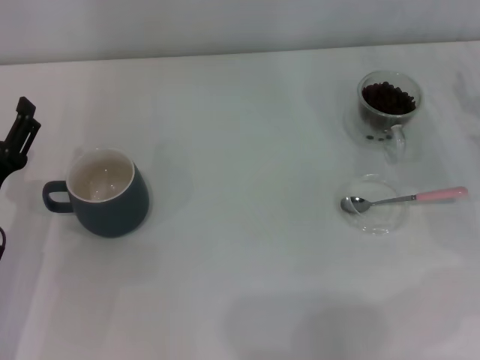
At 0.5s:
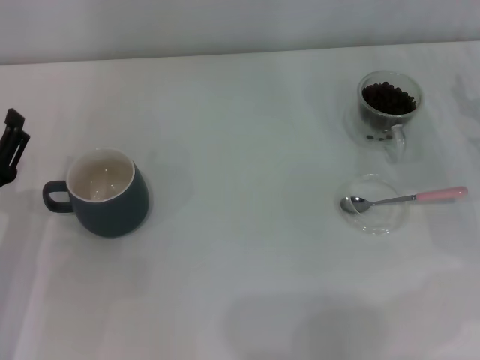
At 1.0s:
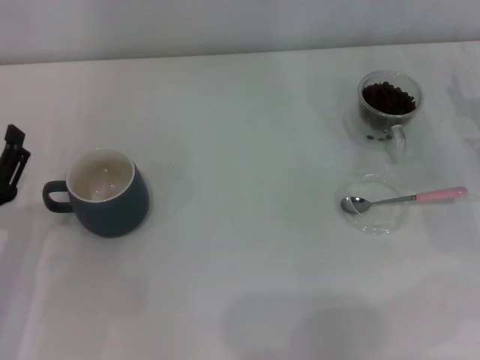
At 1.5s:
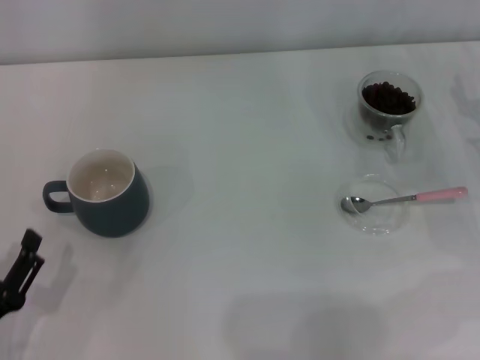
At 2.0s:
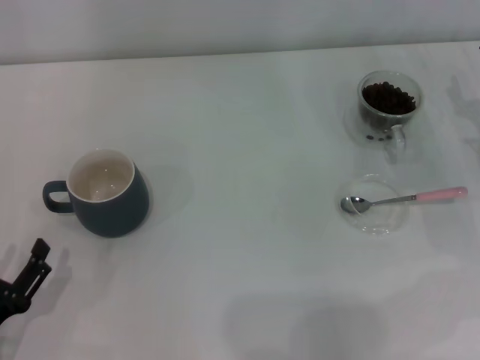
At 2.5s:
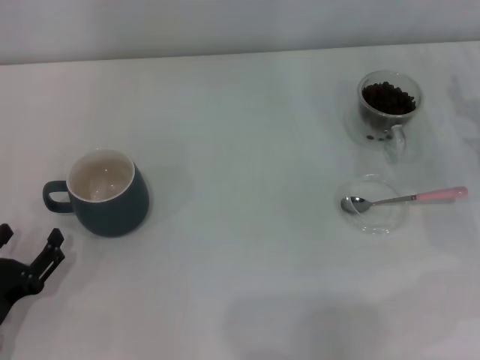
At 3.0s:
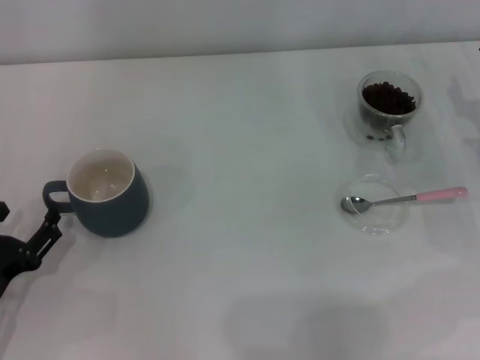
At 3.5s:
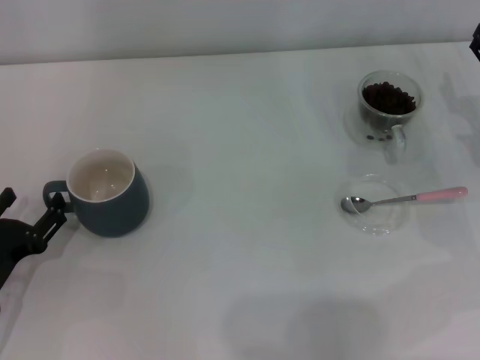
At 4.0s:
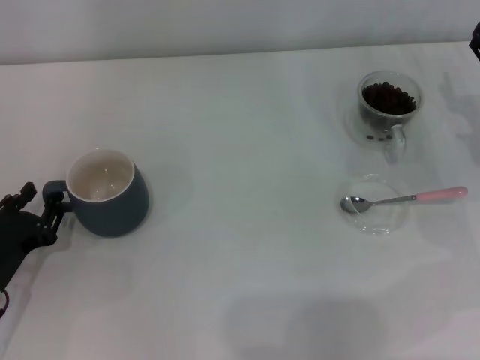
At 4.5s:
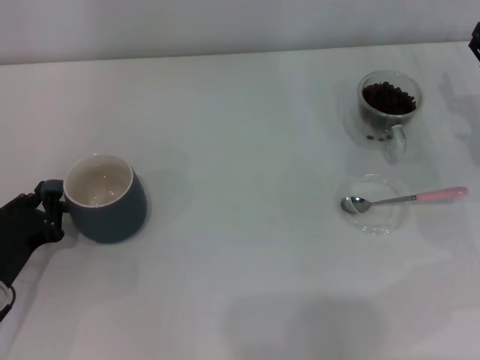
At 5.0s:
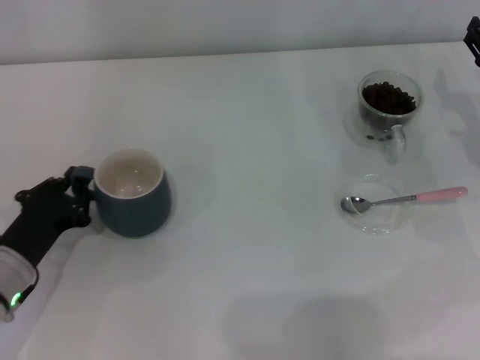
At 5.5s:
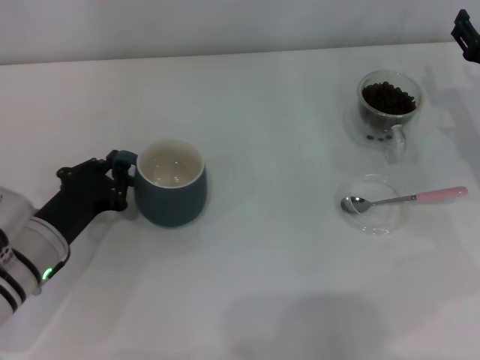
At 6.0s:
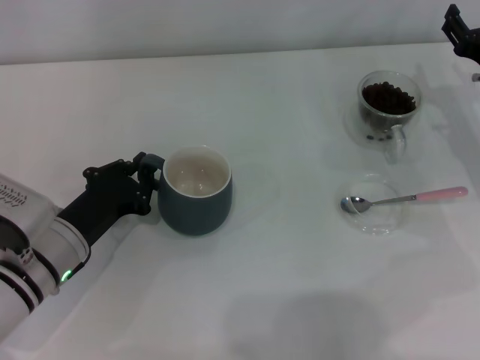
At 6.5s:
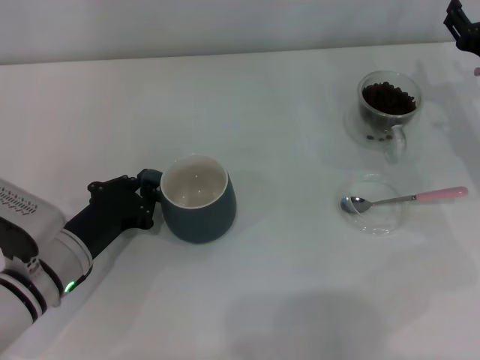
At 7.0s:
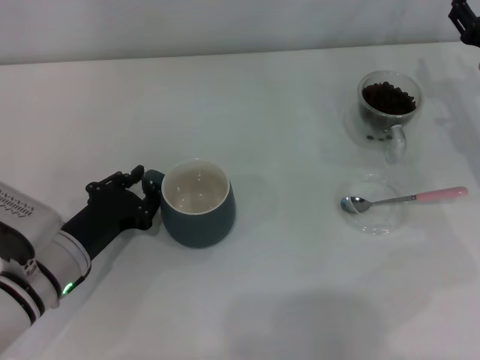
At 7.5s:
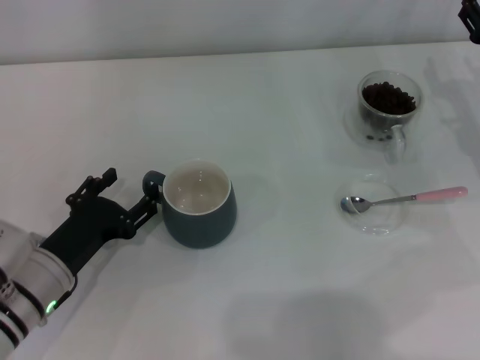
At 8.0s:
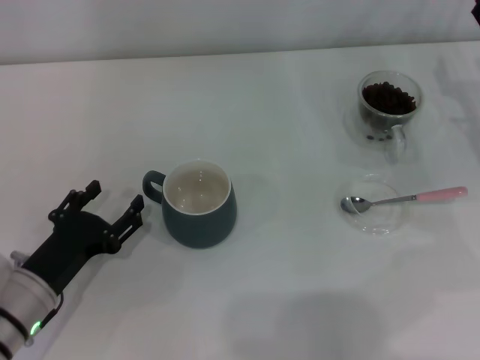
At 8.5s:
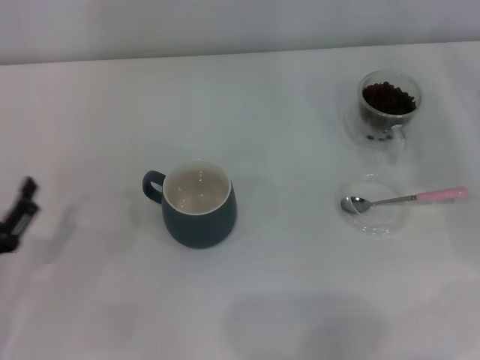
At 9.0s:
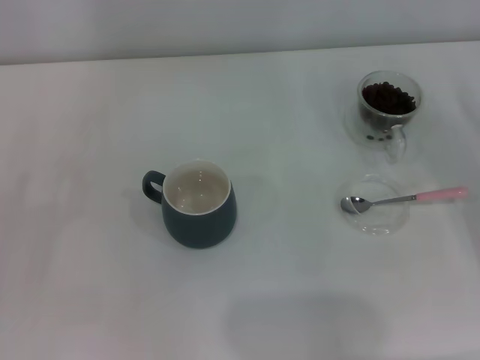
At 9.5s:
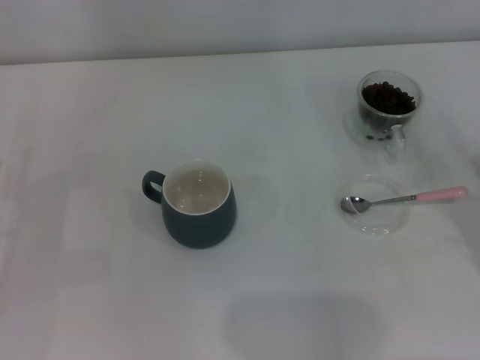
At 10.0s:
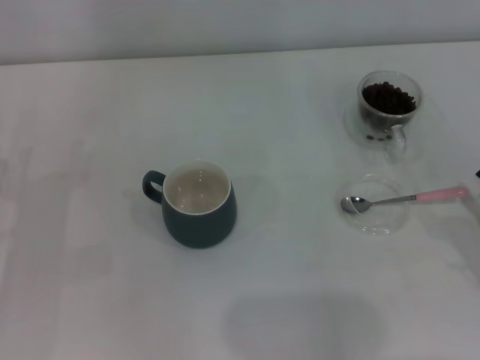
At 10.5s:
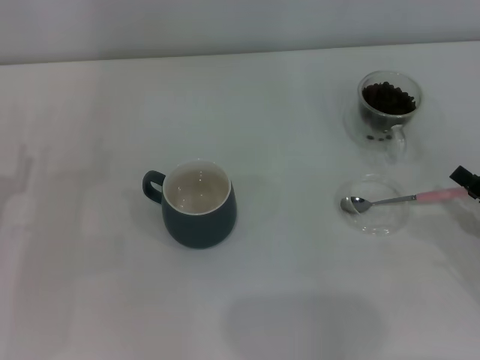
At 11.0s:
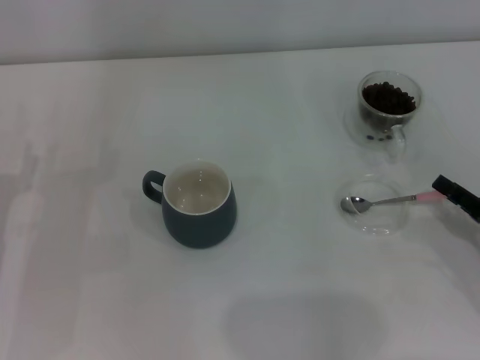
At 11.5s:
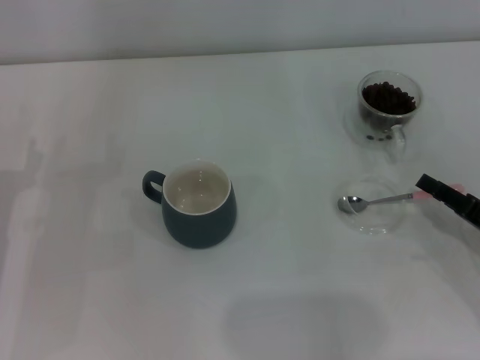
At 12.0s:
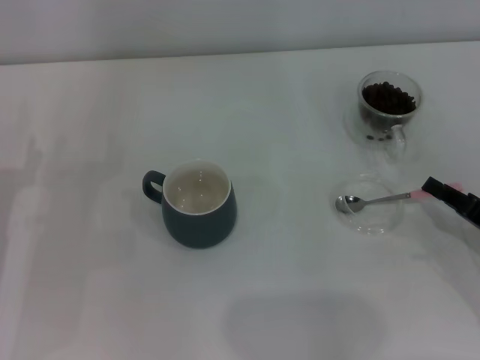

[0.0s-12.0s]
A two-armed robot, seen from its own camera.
Task of the whole recording: Use a pink spoon to take out the coffee beans from the glass and pour them into the gray cup.
Step, 0.0s to 8.0s: Move the cup to the center of view with the left gripper.
0.0s to 2.0s: The left gripper travels backward by some 10 cm.
2.0s to 4.0s: The left gripper is displaced forward by roughly 10 cm.
4.0s to 6.0s: The left gripper moves to the right, approximately 10 cm, and closes its fingers.
6.0s to 8.0s: The left gripper shifts by roughly 5 cm, and opens its fingers.
8.0s to 10.0s: The left gripper is displaced to the left by approximately 10 cm; the right gripper is displaced backward by approximately 20 cm.
10.0s to 12.0s: The right gripper closes its fingers.

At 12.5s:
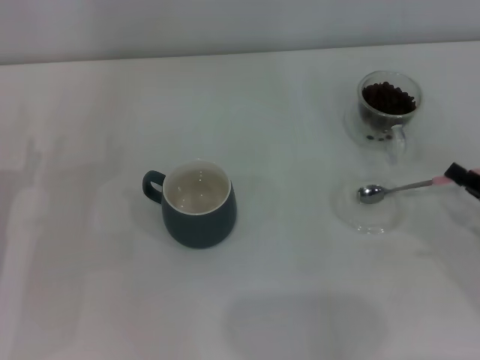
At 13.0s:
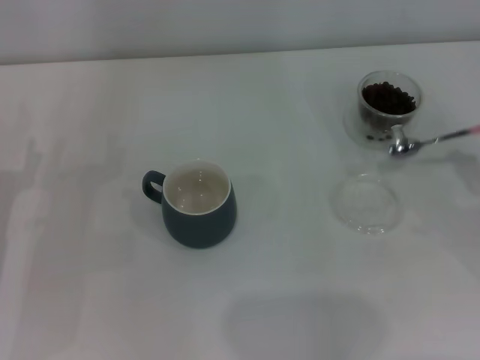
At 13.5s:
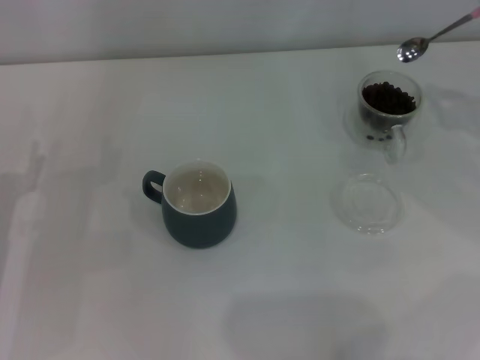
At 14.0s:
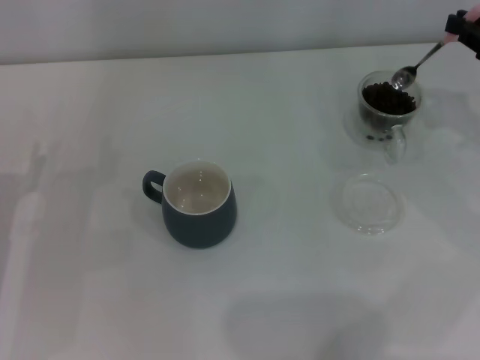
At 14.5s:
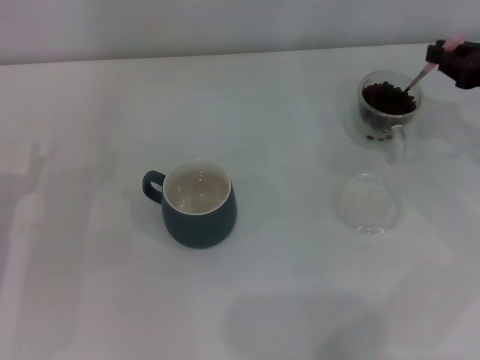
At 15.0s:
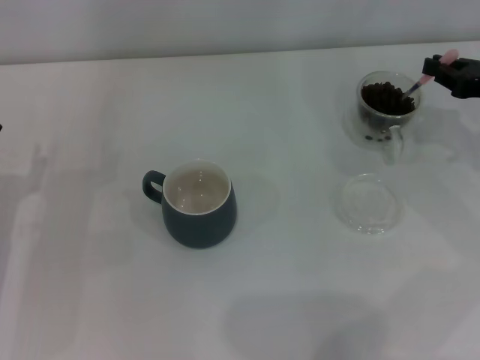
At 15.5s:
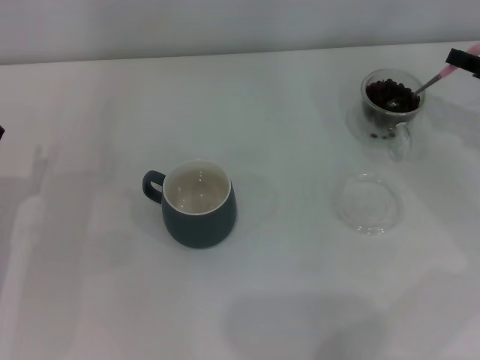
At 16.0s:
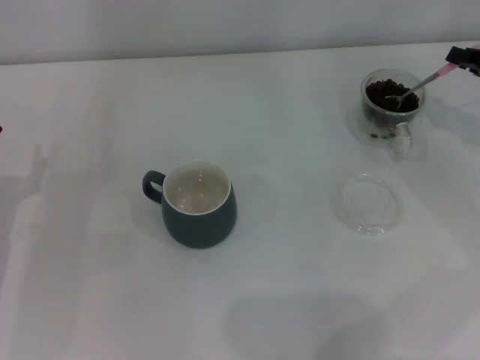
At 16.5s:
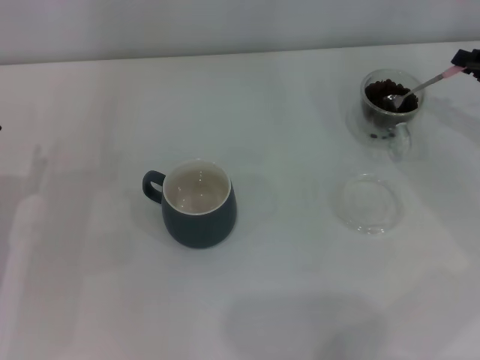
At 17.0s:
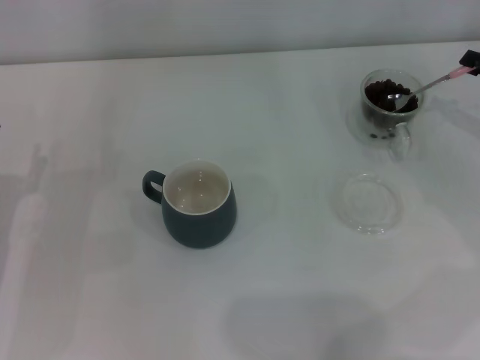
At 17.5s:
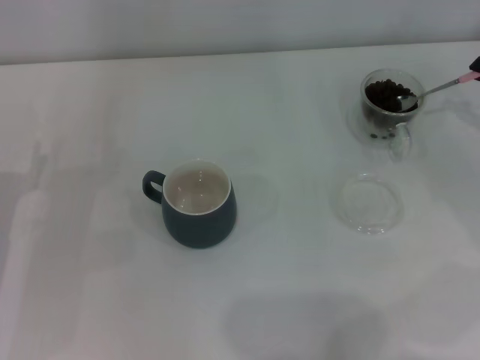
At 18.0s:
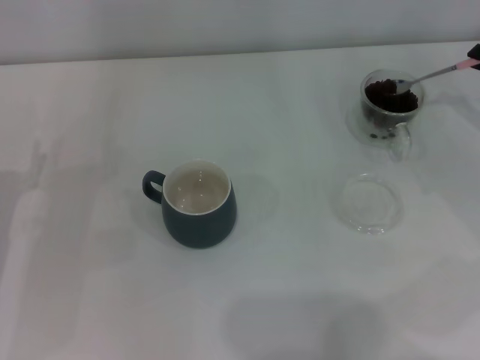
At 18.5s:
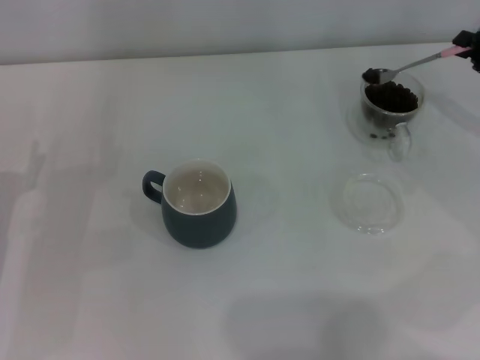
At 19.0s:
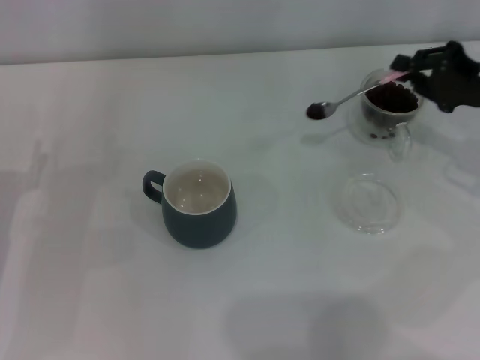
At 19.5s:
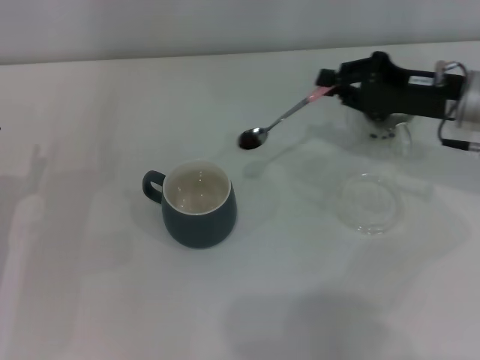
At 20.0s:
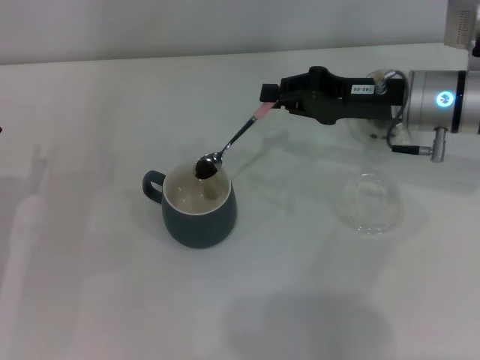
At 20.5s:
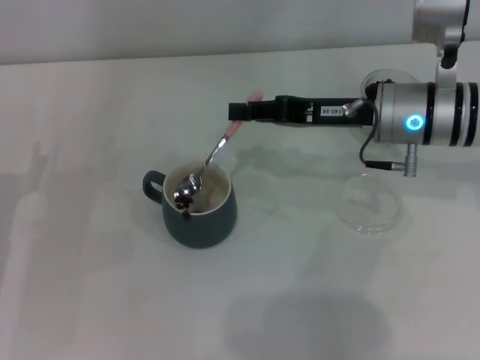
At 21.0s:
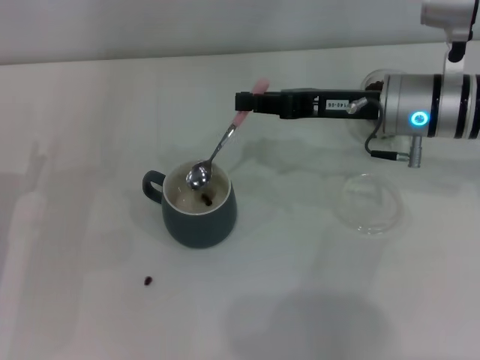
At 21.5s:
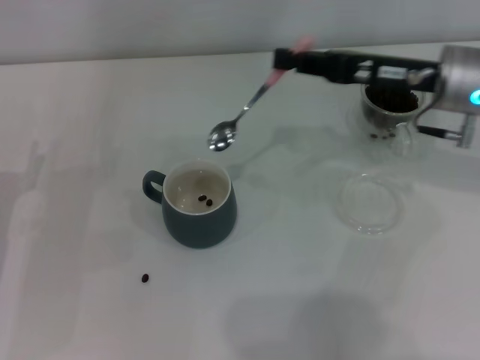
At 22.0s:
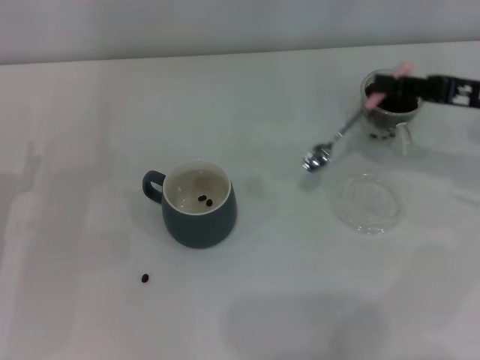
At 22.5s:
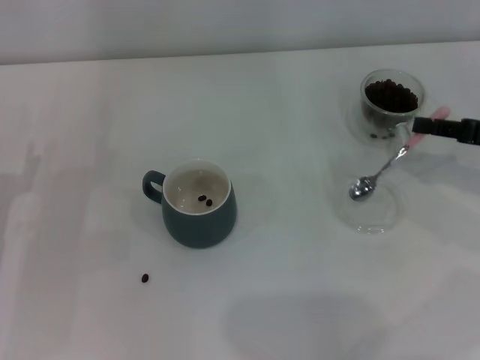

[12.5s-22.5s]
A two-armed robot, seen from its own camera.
Task of the whole recording: Use a pink spoon to take out the coffee beans from the glass and pour them into the gray cup.
Step, 13.0s to 21.0s: Scoop a spoonful of beans into the cup with the right gripper.
12.5s to 14.5s: The right gripper shifts about 15 cm forward and upward.
18.5s to 20.5s: The right gripper heads to the left, covering about 20 cm.
20.5s to 22.5s: The right gripper heads to the right, covering some 15 cm.

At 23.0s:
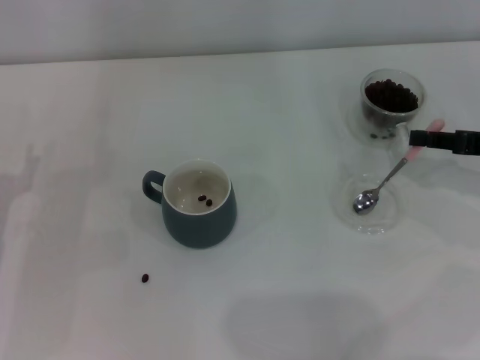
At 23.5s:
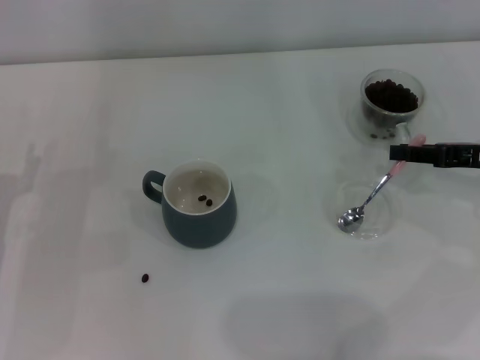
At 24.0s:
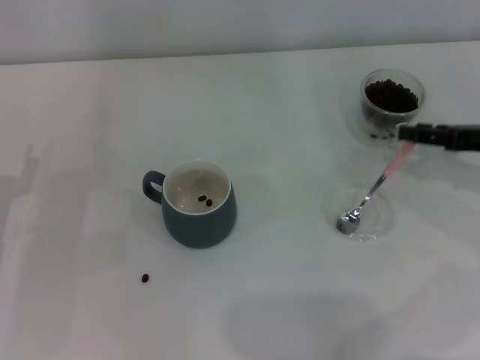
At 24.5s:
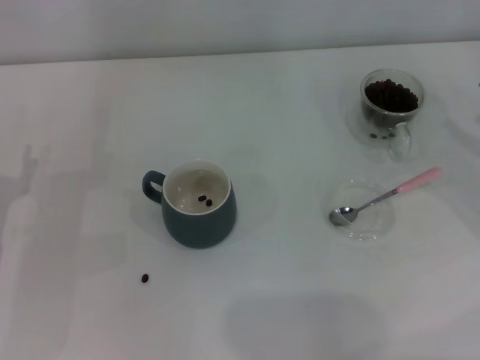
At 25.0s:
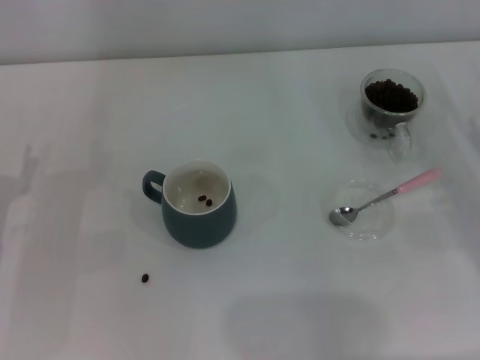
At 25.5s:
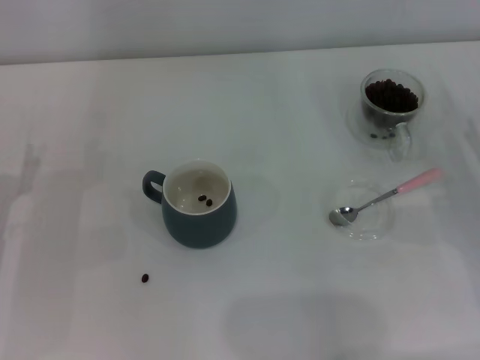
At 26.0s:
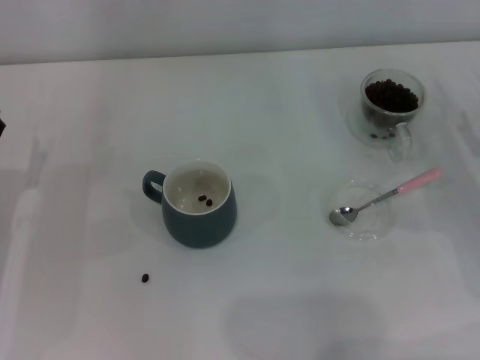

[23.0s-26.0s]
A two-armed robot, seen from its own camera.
Task of the whole recording: Use a pink spoon to take out the coffee beans from the glass and pour them into the gray cup.
23.0s to 24.5s: The right gripper travels to the right by some 5 cm, and opens up.
